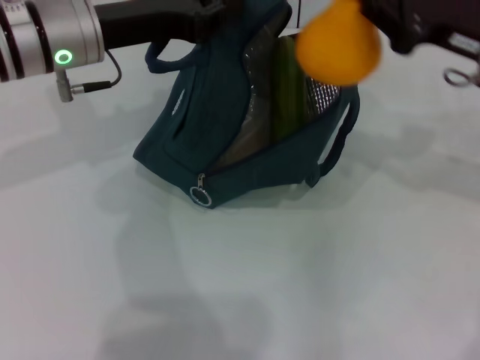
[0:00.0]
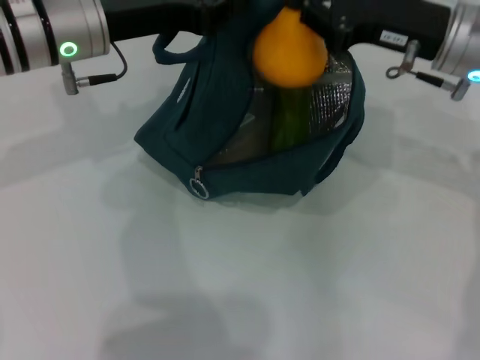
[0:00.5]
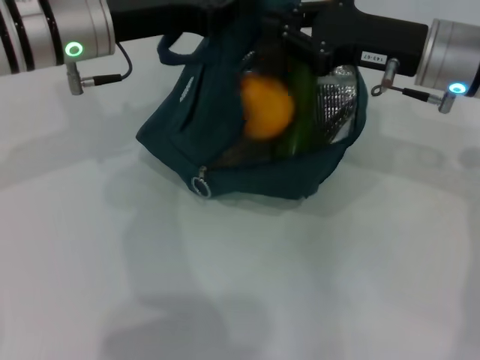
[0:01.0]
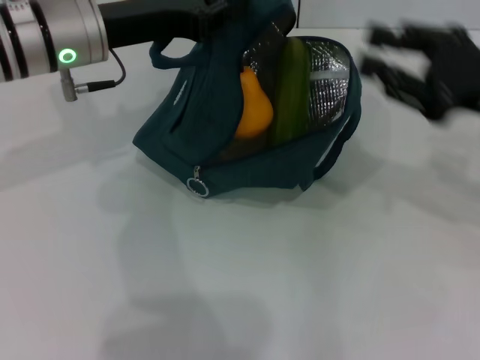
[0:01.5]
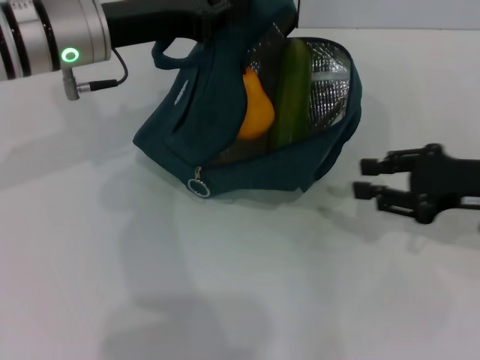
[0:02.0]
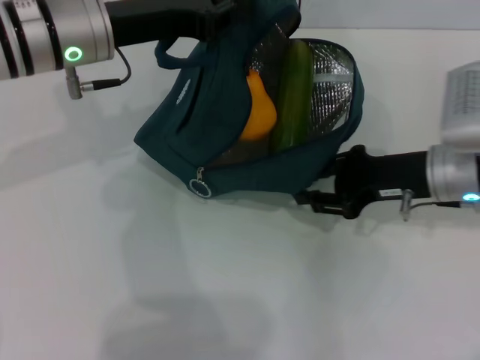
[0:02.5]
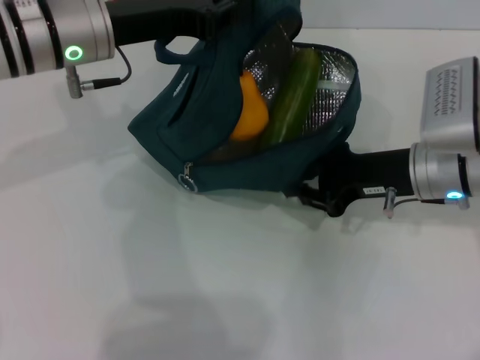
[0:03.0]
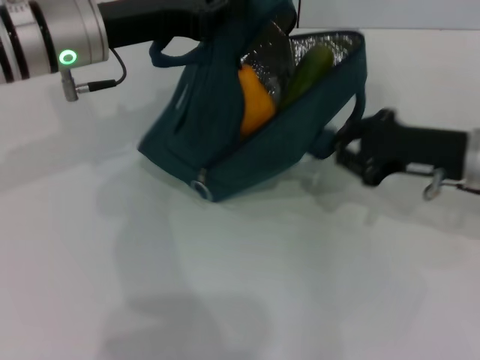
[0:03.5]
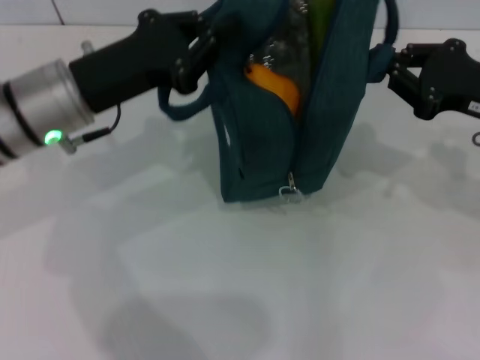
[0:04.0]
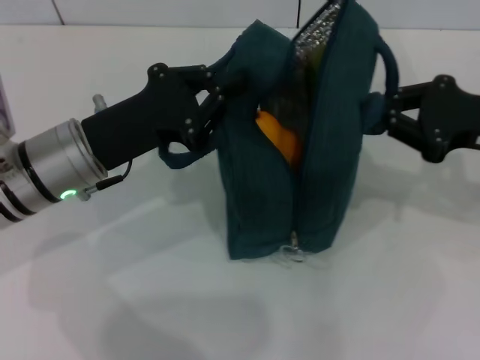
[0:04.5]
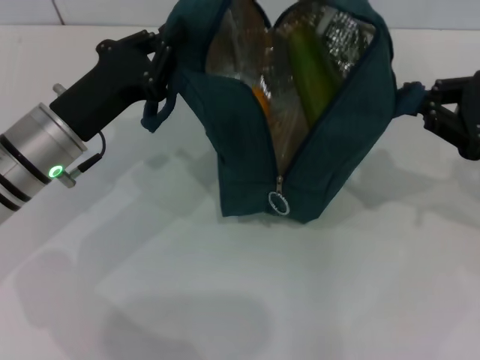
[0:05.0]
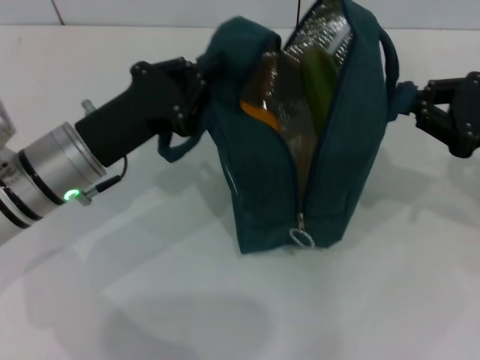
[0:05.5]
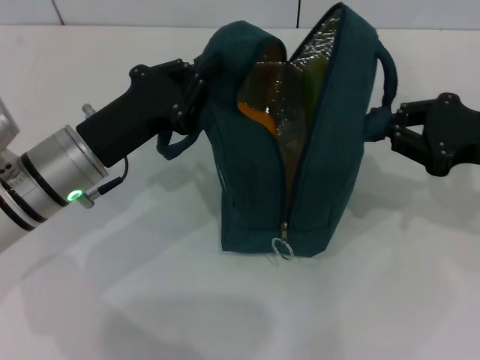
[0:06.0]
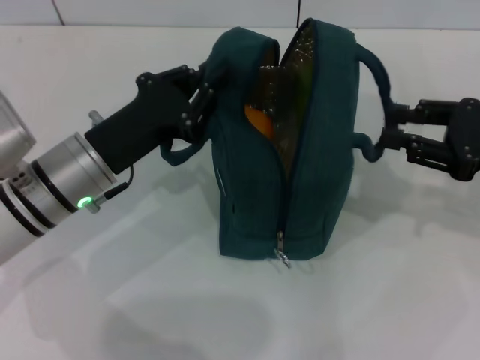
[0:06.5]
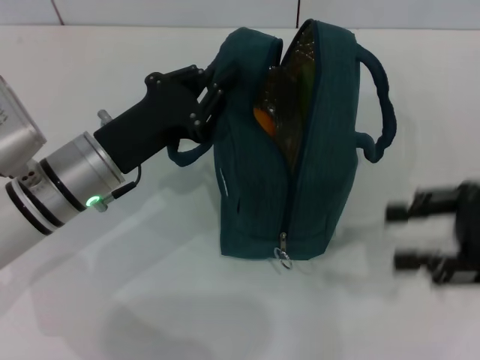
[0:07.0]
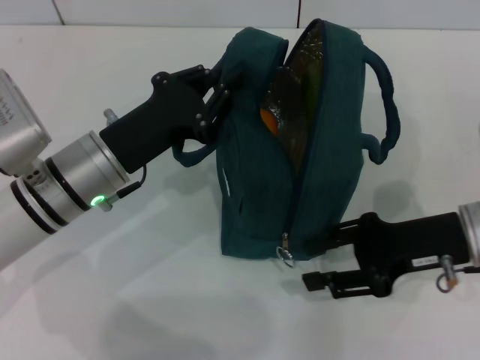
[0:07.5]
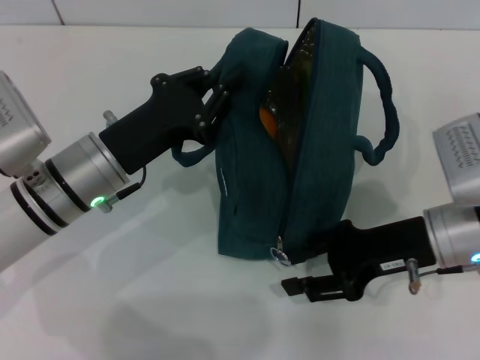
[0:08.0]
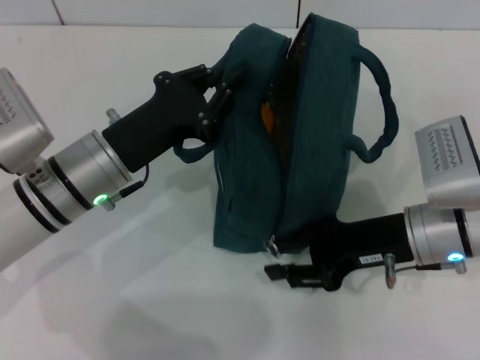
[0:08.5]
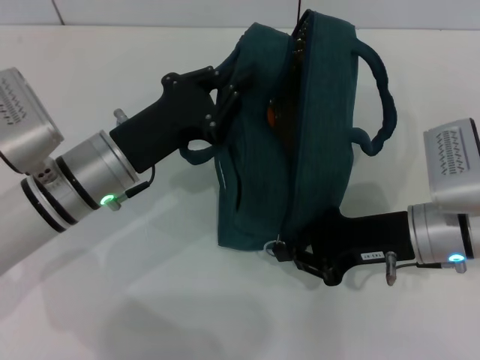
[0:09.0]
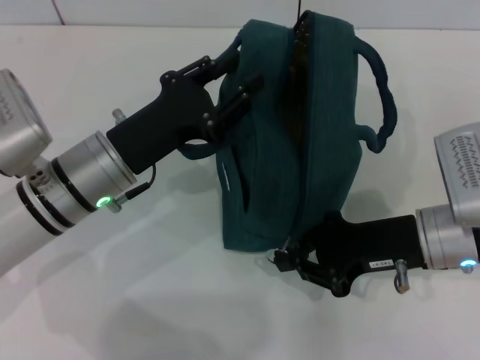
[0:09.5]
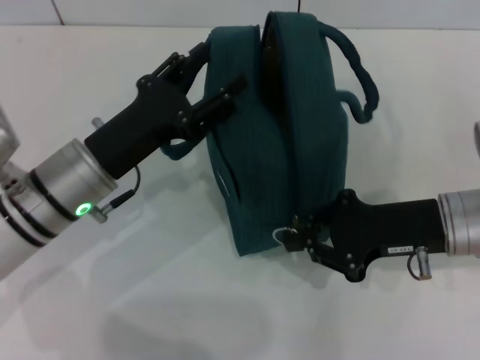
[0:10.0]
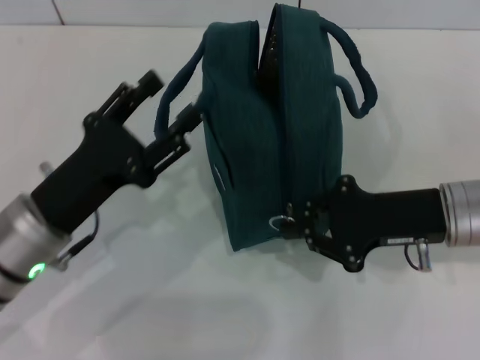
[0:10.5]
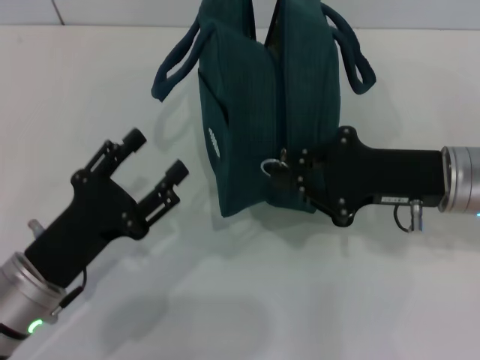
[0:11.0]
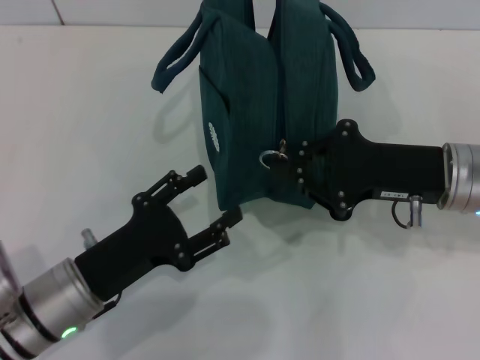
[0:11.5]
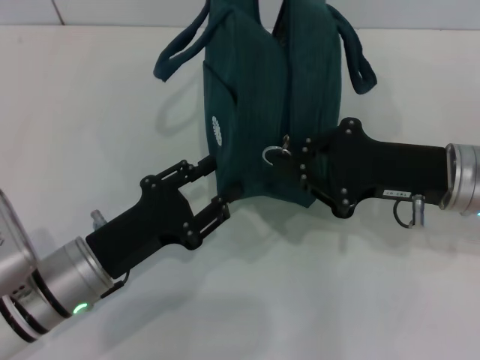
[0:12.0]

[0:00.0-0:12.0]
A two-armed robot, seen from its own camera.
Step, 0:01.5 to 0:06.0: Hold the lunch bag with your right hand.
Step, 0:06.5 to 0:10.0: Hold the lunch bag with your left hand.
0:00.0 to 0:02.0: The right gripper goes approximately 10 cm downward and backward, and opens up.
0:02.0 to 0:04.0: The right gripper travels to the left and back again, approximately 10 cm each way, and closes, while the left gripper shifts about 5 cm backward.
0:04.0 to 0:06.0: The left gripper is displaced downward by roughly 5 cm.
0:06.0 to 0:08.0: The right gripper travels to the left and downward by roughly 10 cm, and opens up.
0:08.0 to 0:10.0: The right gripper closes its fingers. Meanwhile the left gripper opens its fingers.
0:10.0 to 0:12.0: The left gripper shifts some 5 cm backward.

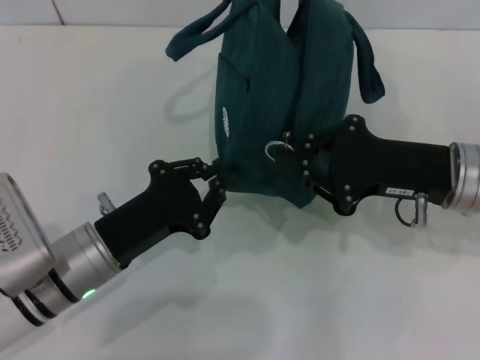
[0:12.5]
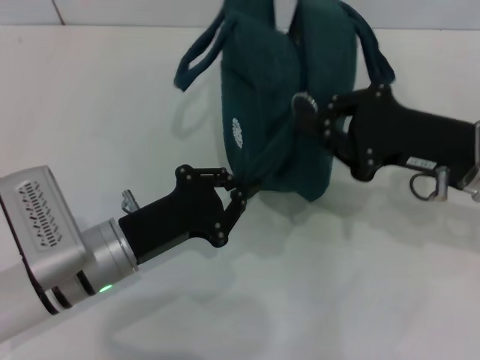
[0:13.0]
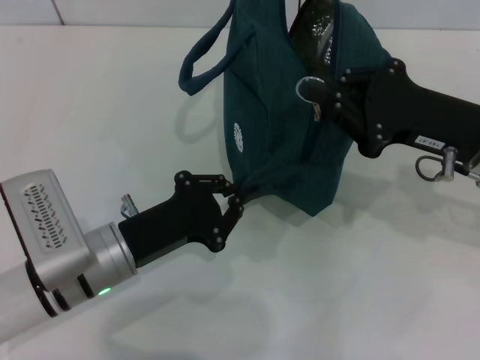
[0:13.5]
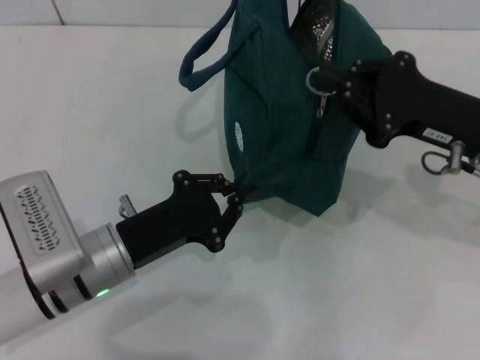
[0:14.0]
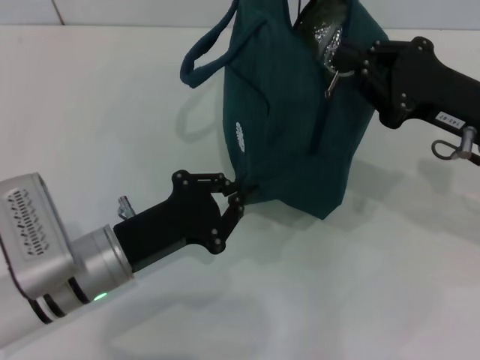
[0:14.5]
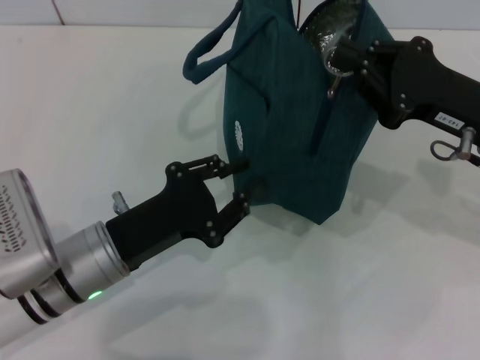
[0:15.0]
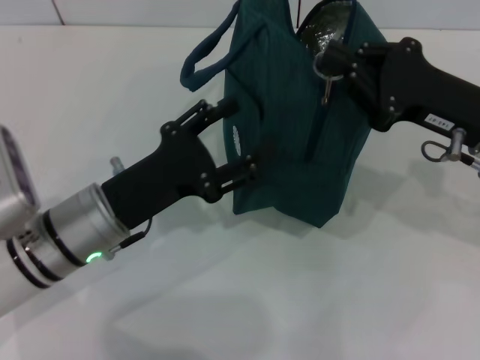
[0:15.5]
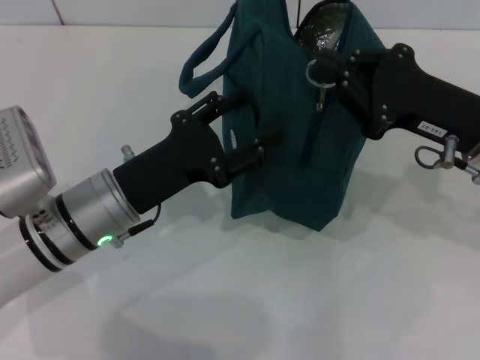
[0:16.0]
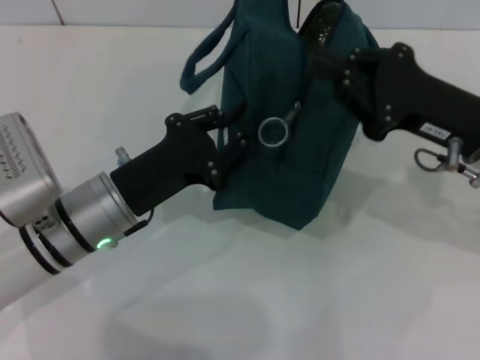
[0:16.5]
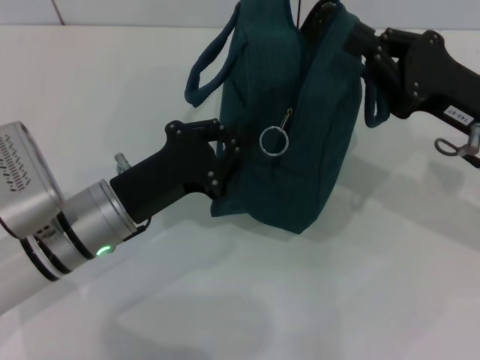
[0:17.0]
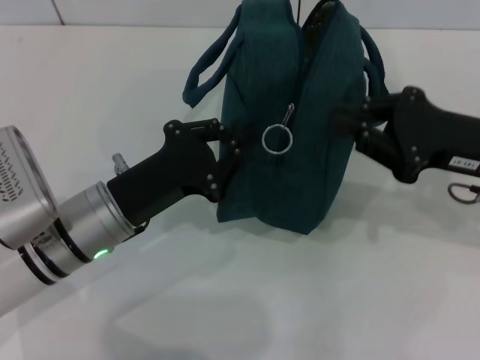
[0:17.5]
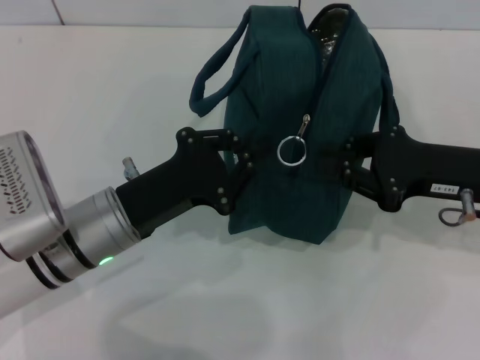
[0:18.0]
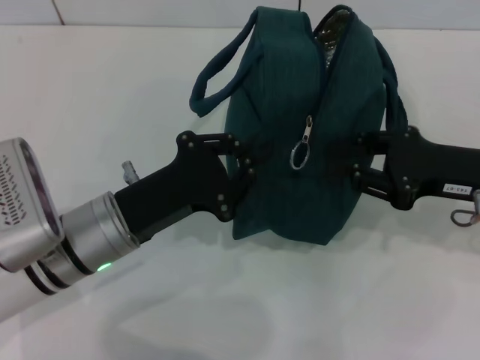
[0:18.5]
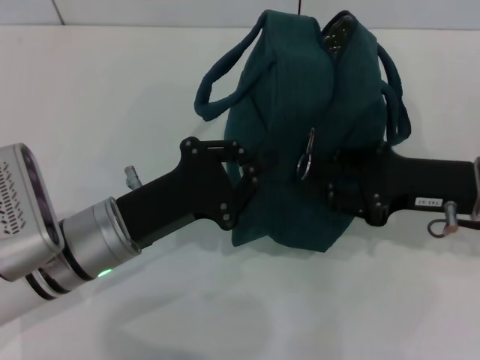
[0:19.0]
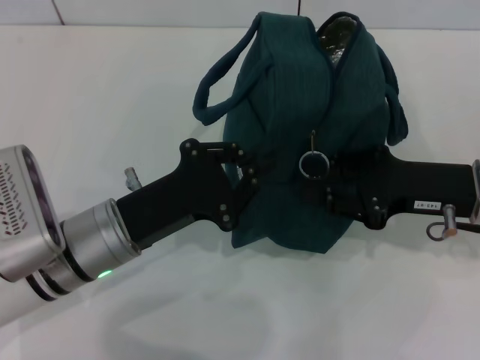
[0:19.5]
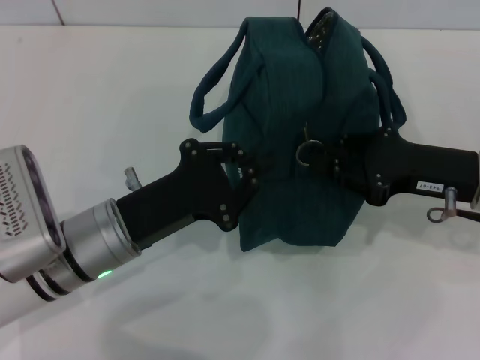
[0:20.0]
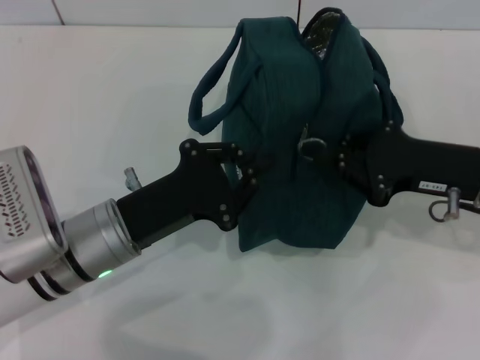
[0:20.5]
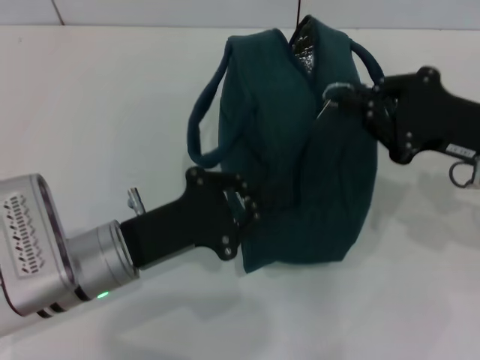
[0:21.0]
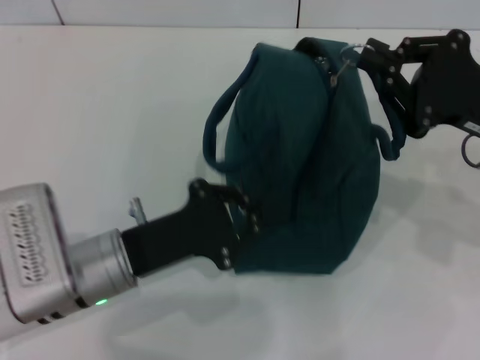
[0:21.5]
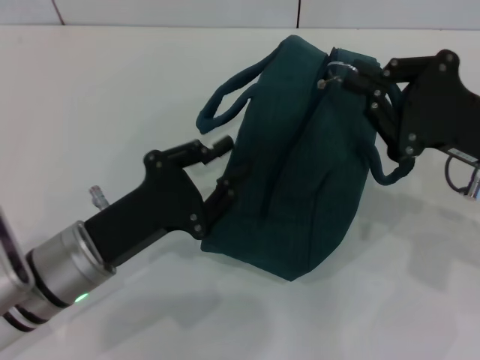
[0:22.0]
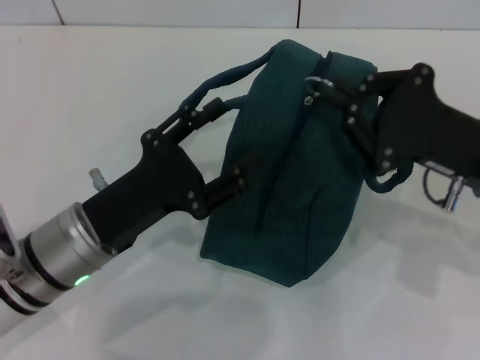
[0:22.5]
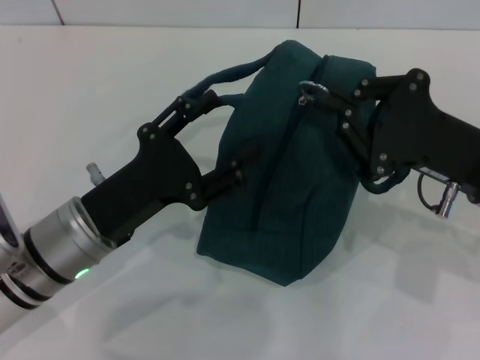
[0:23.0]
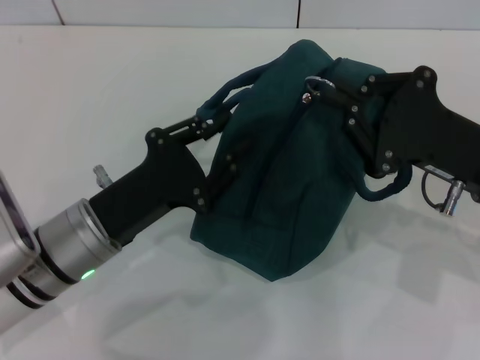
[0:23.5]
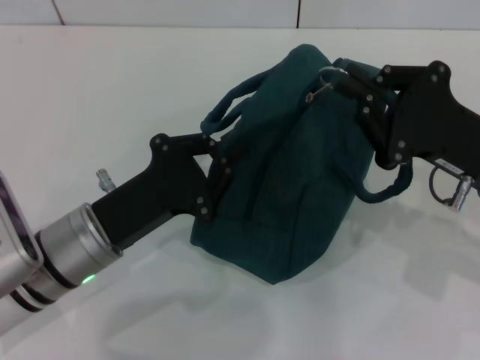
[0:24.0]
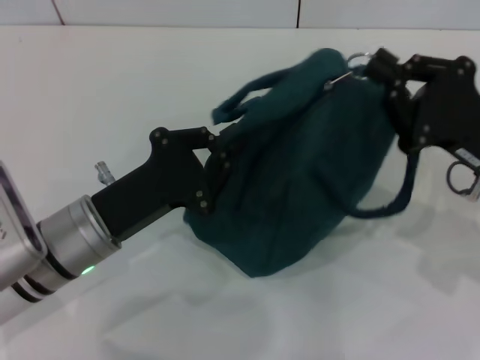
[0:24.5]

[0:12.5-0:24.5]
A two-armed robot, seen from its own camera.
0:14.5 to 0:16.5: The left gripper opens its fingers.
0:16.5 to 0:18.5: The left gripper closes its fingers.
0:18.5 to 0:20.5: There are only small adjustments of the grippers.
0:20.5 to 0:22.5: The left gripper opens up.
0:22.5 to 0:24.5: The left gripper closes up.

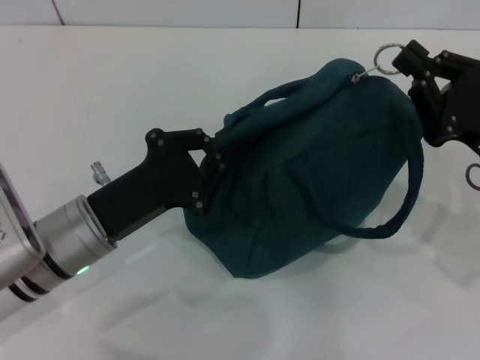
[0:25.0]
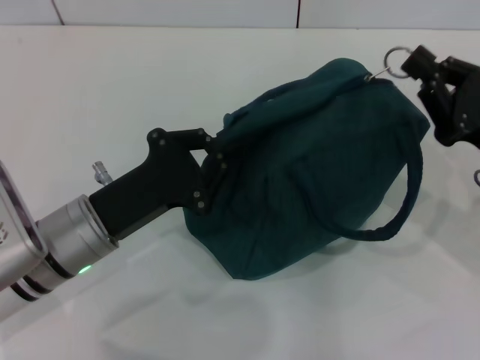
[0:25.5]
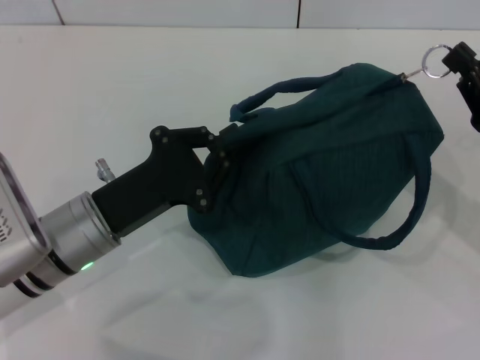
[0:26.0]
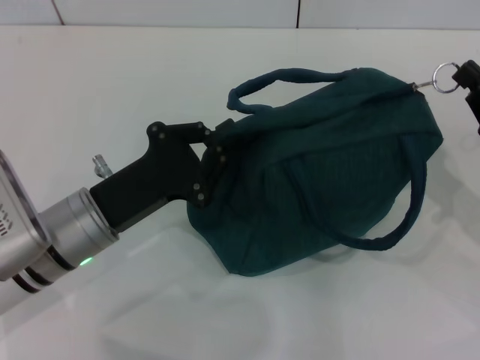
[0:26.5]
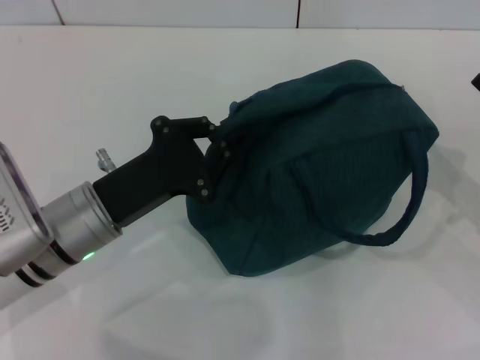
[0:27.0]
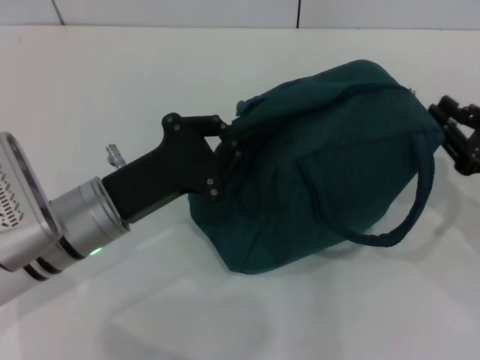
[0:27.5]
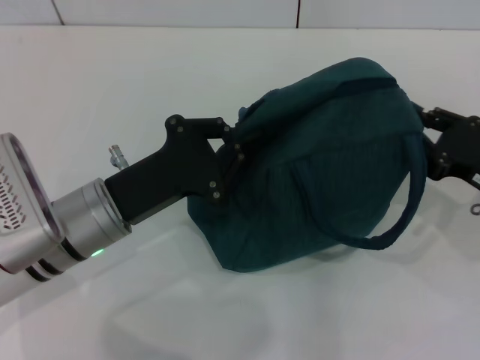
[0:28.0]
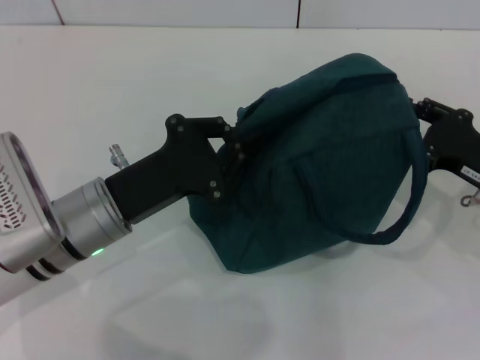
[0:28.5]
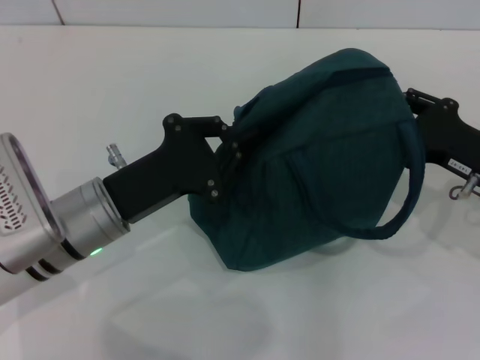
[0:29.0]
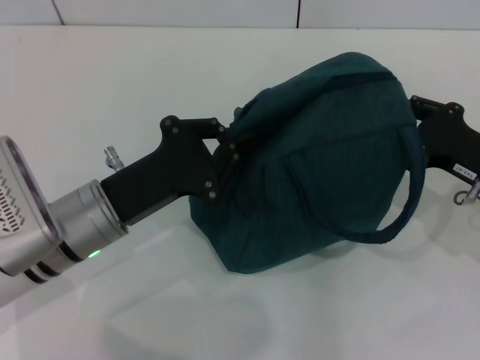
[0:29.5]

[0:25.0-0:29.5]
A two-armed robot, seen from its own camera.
0:25.0 to 0:27.0: The right gripper heads to the right, covering about 5 cm.
0:27.0 to 0:29.5: The right gripper moves to the left, some 5 cm, and opens its fingers.
